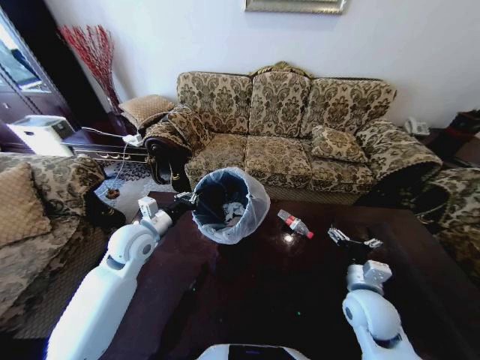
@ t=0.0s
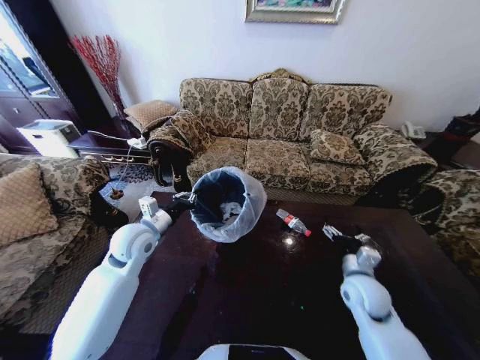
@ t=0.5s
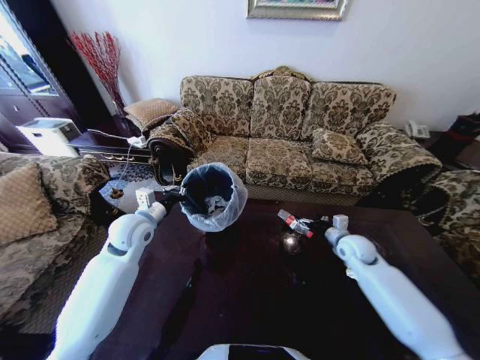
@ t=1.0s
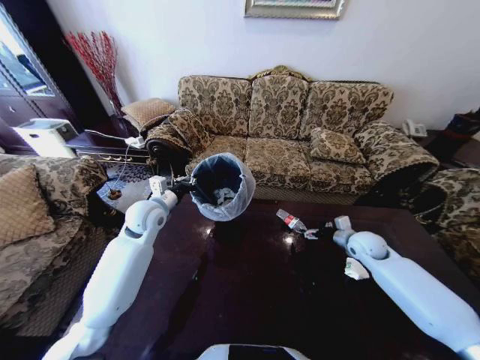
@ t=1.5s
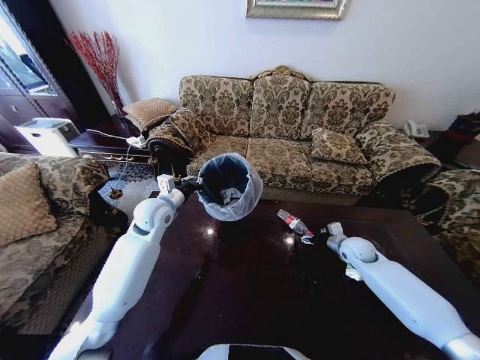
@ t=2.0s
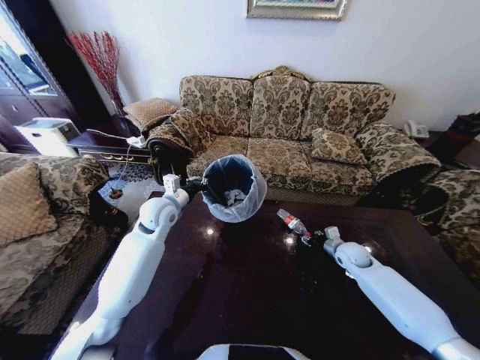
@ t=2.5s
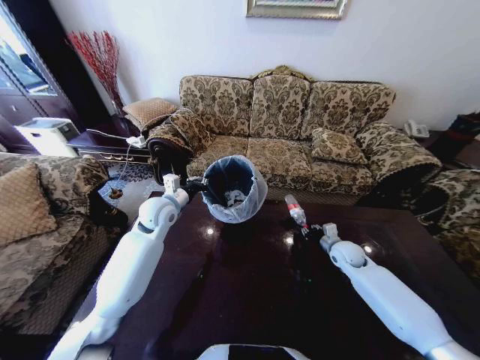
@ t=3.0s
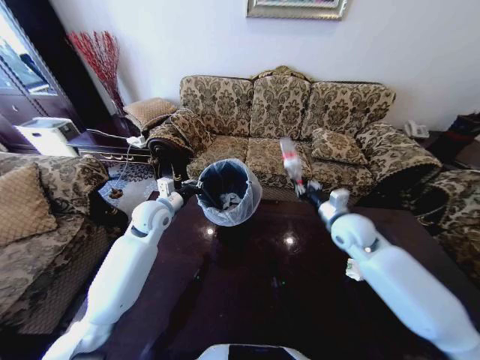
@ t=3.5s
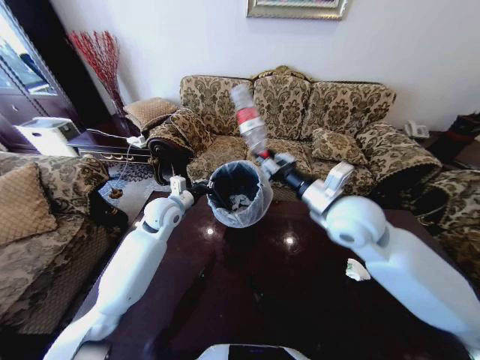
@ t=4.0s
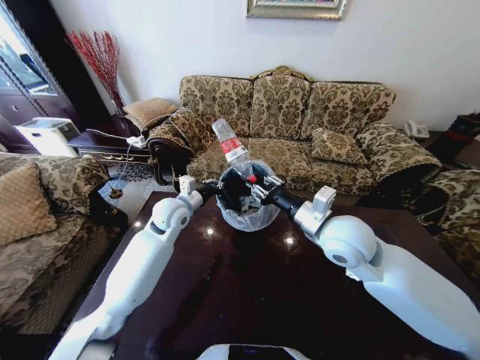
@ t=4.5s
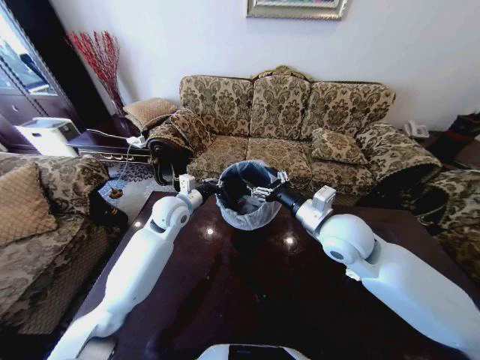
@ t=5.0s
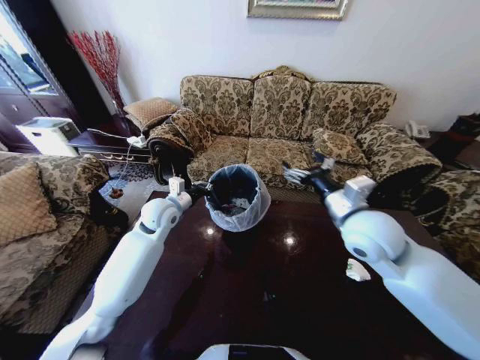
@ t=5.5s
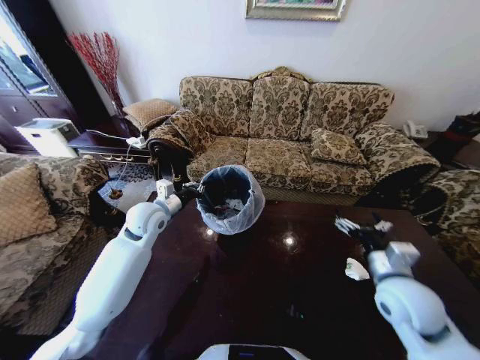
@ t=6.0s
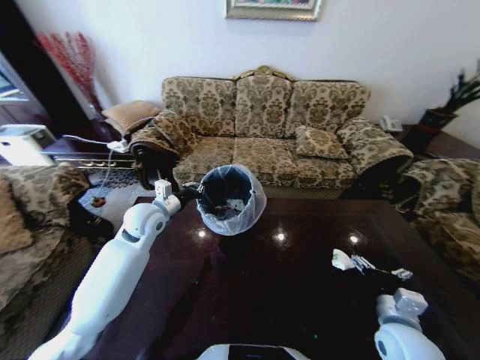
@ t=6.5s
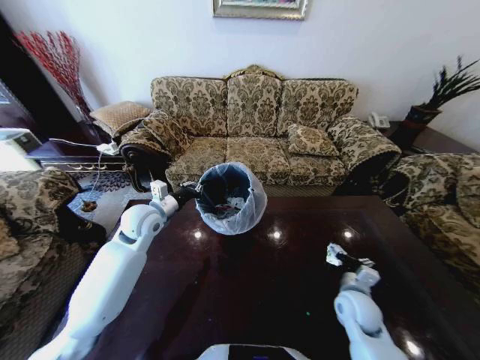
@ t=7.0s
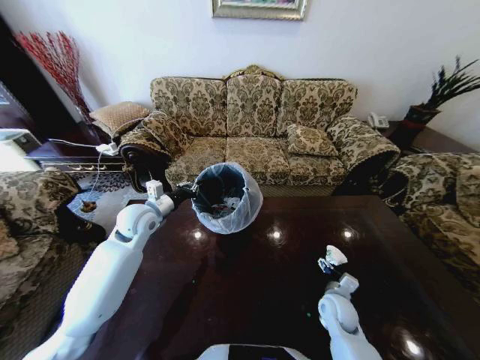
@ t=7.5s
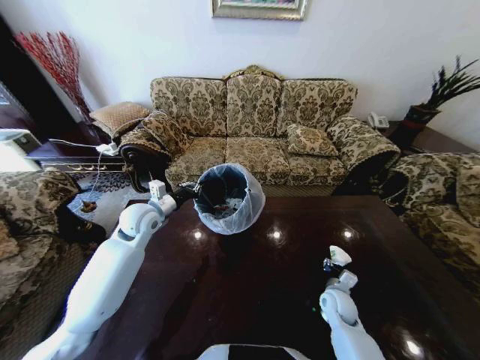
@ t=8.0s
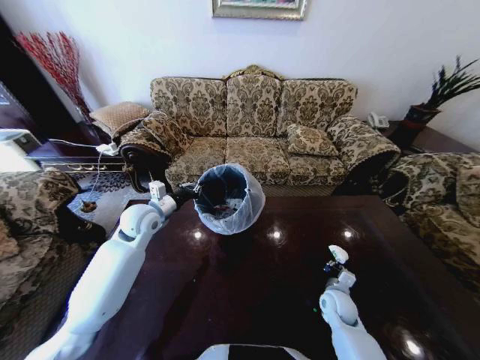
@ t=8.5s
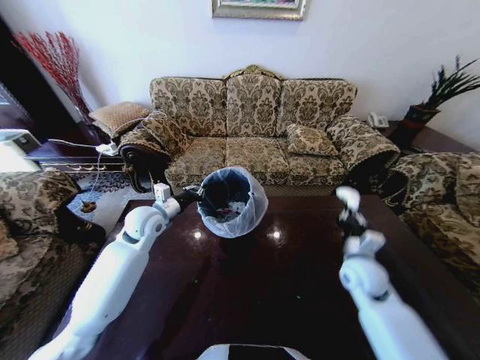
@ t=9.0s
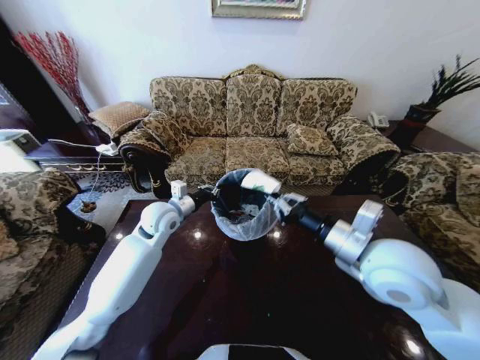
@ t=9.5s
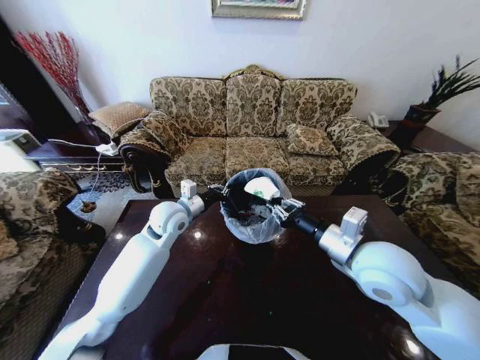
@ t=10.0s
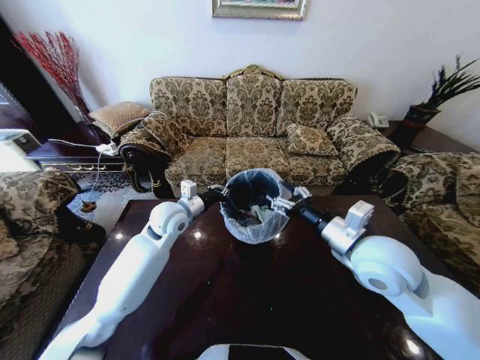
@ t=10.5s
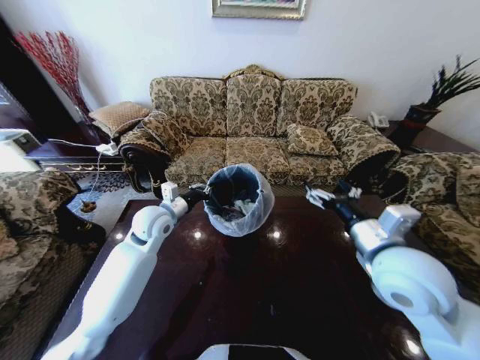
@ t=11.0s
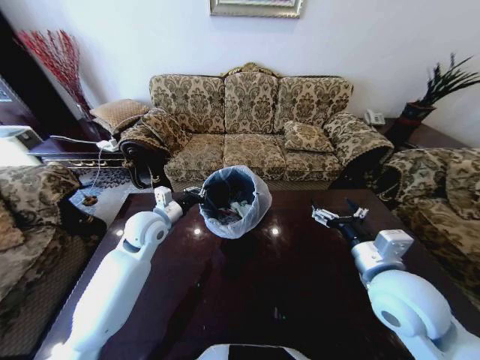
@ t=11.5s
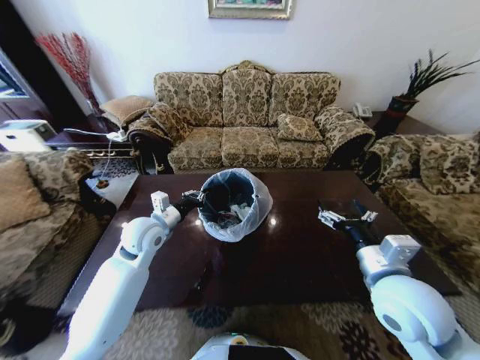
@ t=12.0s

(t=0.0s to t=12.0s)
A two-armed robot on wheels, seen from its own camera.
Task of the whole recording: Move to the front of the table and place the trash on the table into the trash bin.
t=0.0s - t=2.0s: The right gripper is displaced forward and to the right by approximately 20 cm; the left gripper moves forward, some 10 cm.
t=2.0s - t=4.0s: The right gripper goes about 35 cm upward and to the left, and closes its fingers.
t=4.0s - t=6.0s: The right gripper is displaced downward, to the right and backward by roughly 20 cm, and opens its fingers.
t=6.0s - t=8.0s: The right gripper goes approximately 25 cm downward.
t=8.0s - t=10.0s: The left gripper is displaced to the right by some 10 cm; the right gripper heads upward, covering some 35 cm, and closes up.
t=10.0s - t=12.0s: The left gripper travels to the left by about 5 cm, while the right gripper changes place by roughly 5 cm, and opens.

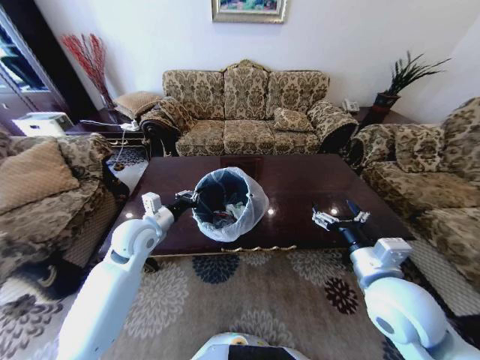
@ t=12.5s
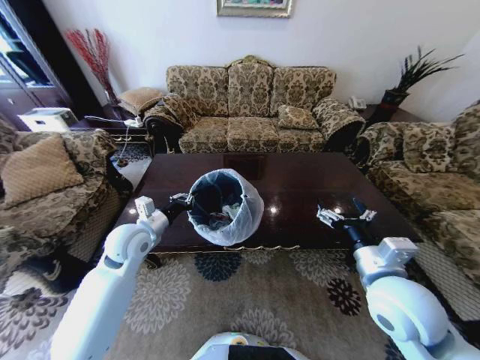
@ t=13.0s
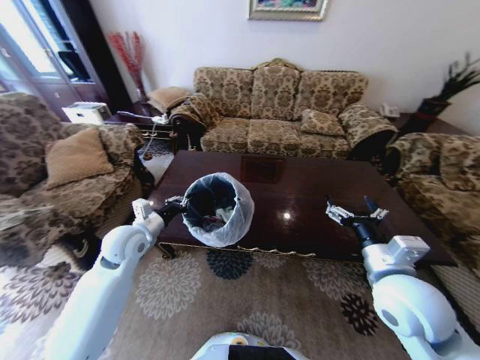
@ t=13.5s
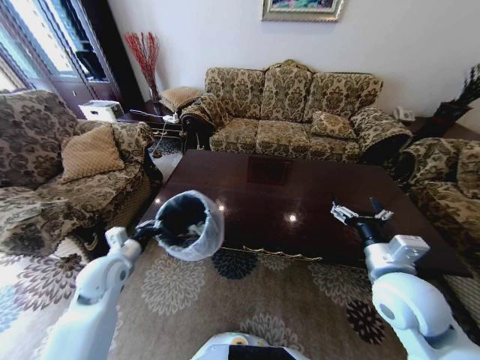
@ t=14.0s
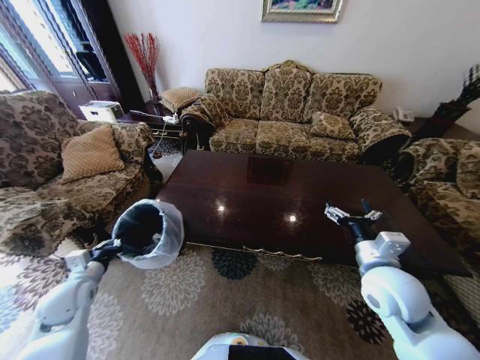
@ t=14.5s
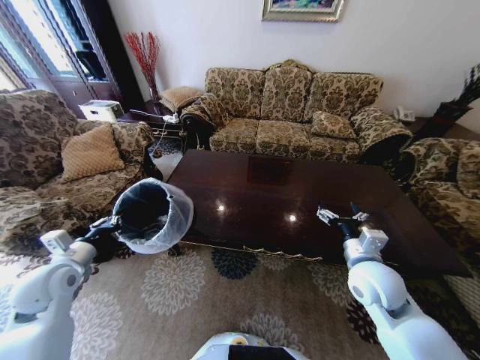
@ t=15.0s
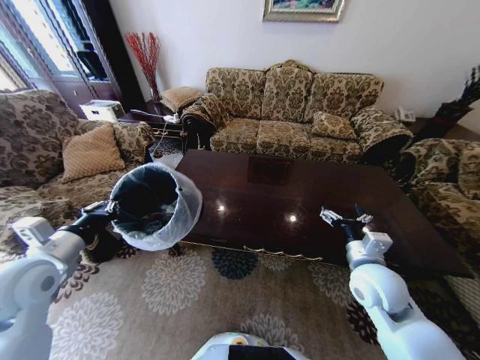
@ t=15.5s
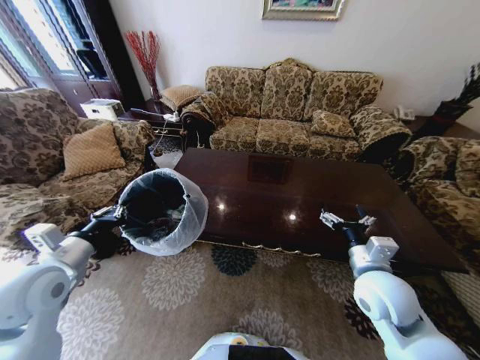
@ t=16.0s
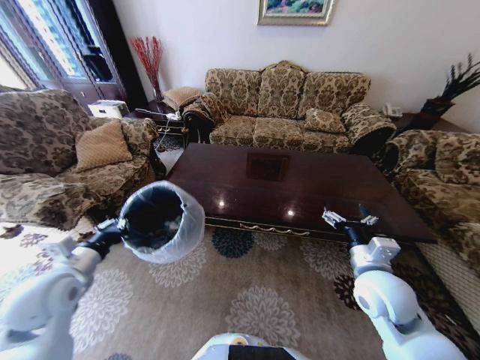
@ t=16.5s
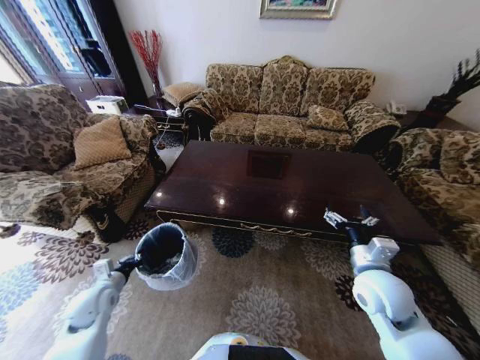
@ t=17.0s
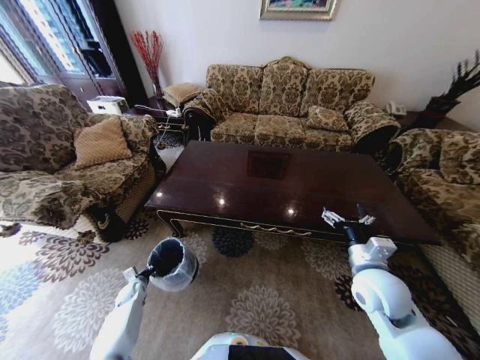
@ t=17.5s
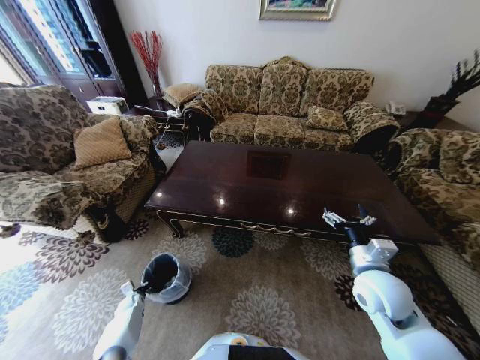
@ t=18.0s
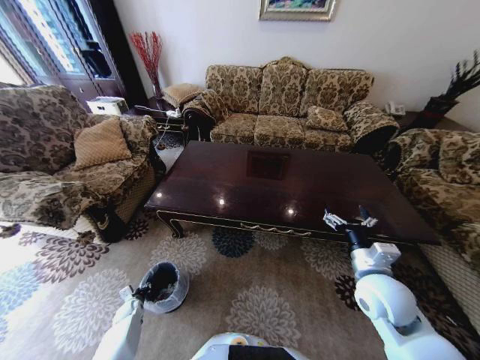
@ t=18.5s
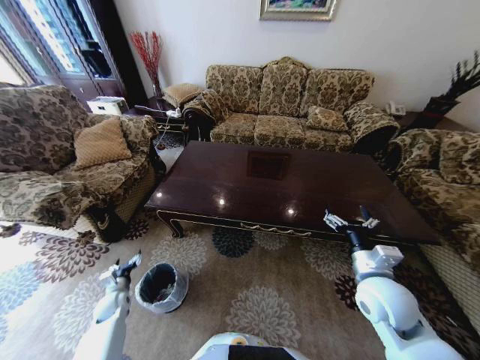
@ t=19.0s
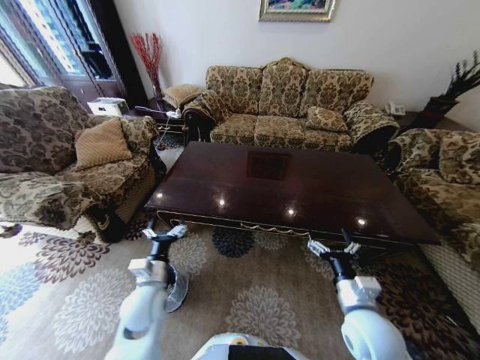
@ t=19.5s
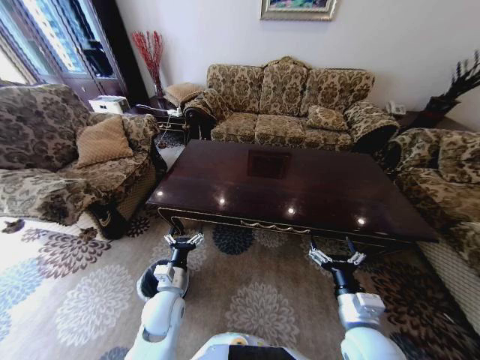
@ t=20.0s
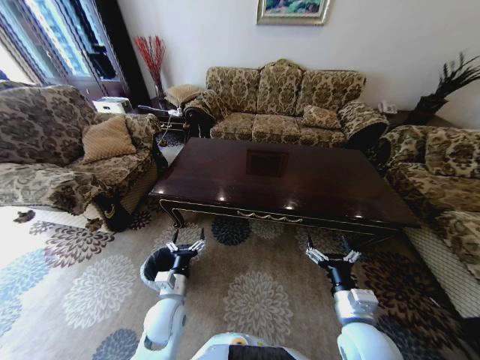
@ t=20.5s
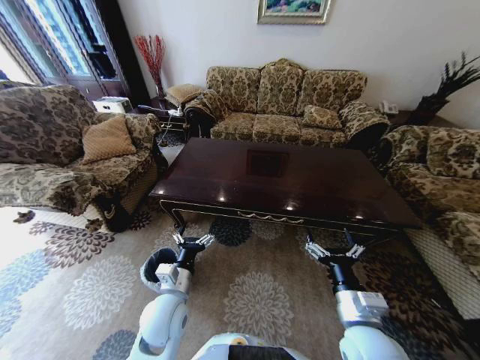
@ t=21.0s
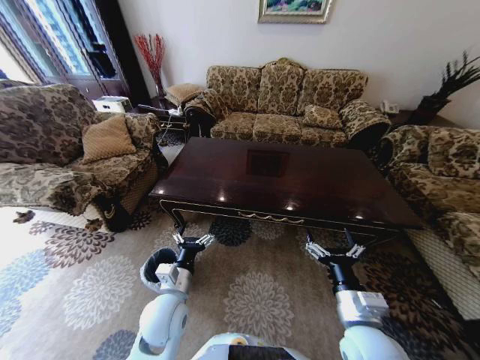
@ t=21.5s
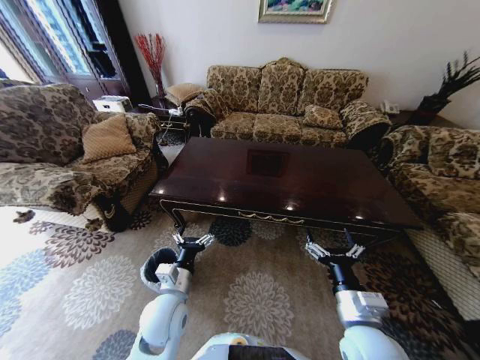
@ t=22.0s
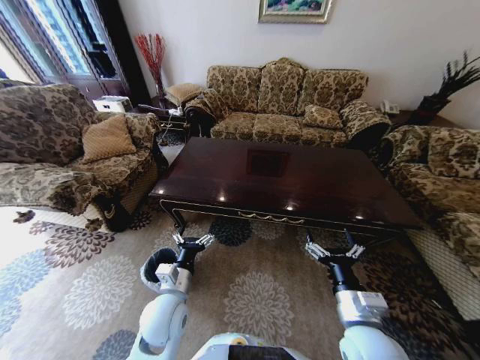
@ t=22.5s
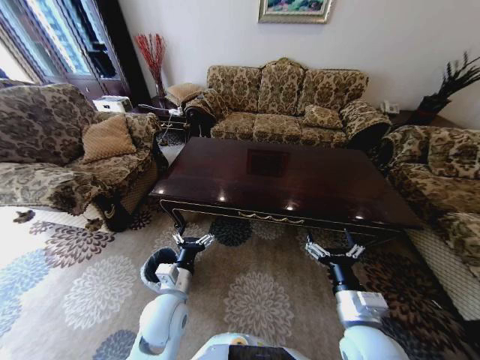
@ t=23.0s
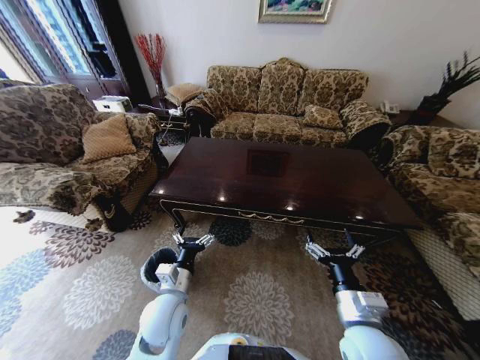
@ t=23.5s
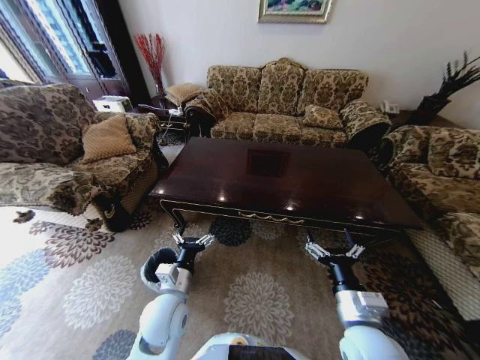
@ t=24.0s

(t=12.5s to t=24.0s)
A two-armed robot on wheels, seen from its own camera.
Task of the whole recording: Move to the front of the table and place the trash on the table into the trash bin.
t=12.5s - t=14.5s: The right gripper moves roughly 5 cm; the left gripper goes approximately 25 cm to the left, backward and downward.
t=14.5s - t=16.5s: The left gripper shifts approximately 15 cm upward and to the right.
t=16.5s - t=18.5s: The left gripper goes some 40 cm downward, and opens.
t=18.5s - t=20.0s: The right gripper shifts roughly 10 cm backward and to the left; the left gripper moves upward and to the right, some 35 cm, and opens up.
t=20.0s - t=22.0s: The left gripper ends up about 5 cm from where it was.
t=22.0s - t=24.0s: The two grippers keep their place.

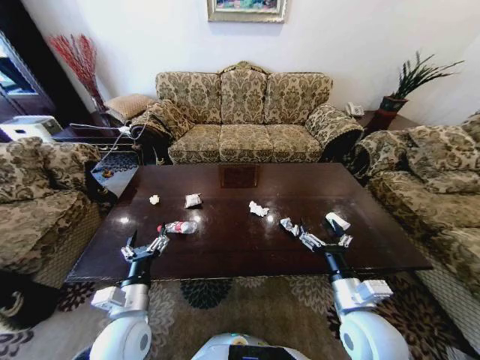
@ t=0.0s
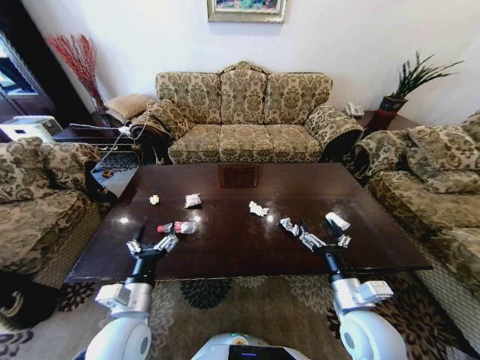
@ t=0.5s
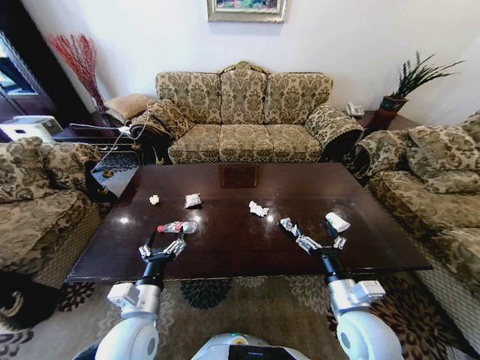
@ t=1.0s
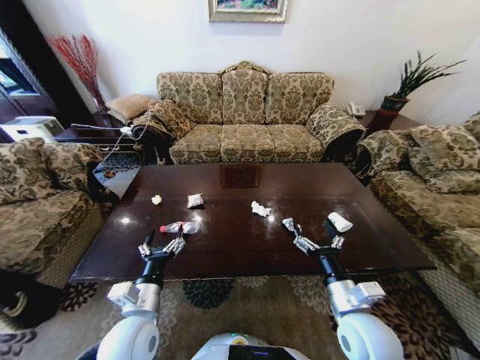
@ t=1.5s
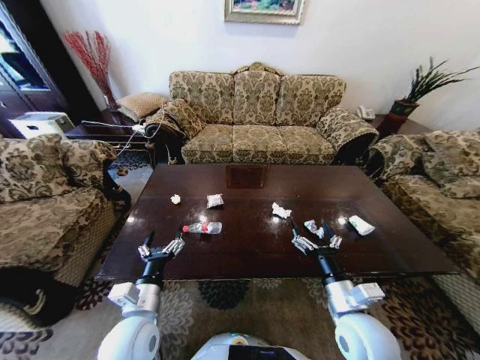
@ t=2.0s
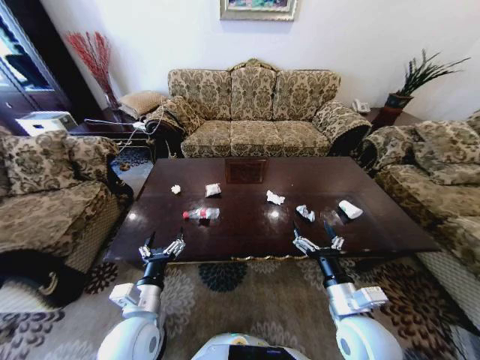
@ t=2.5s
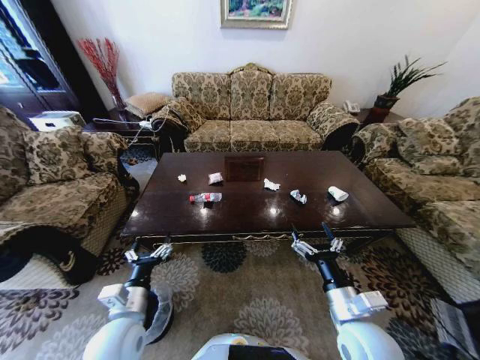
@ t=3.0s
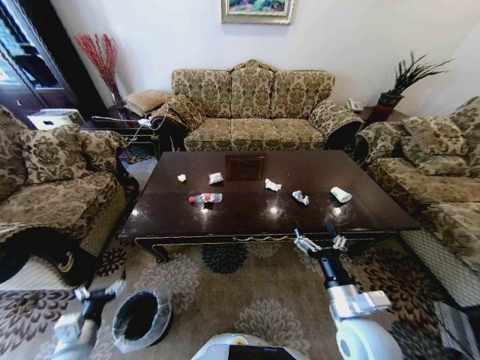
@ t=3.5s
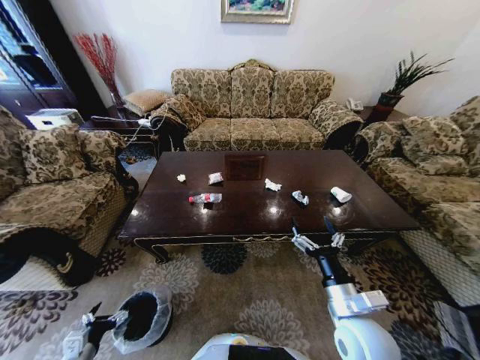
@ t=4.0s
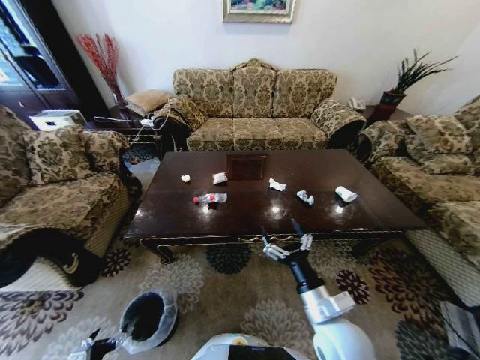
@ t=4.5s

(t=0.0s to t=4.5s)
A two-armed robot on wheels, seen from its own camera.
Task of the whole recording: Move to the front of the table and place the trash on the table into the trash bin.
t=2.0s - t=4.5s: The right gripper goes some 5 cm to the left. Meanwhile the left gripper is displaced to the left, downward and backward by some 30 cm.
